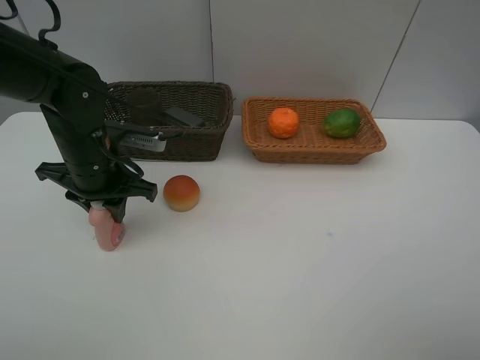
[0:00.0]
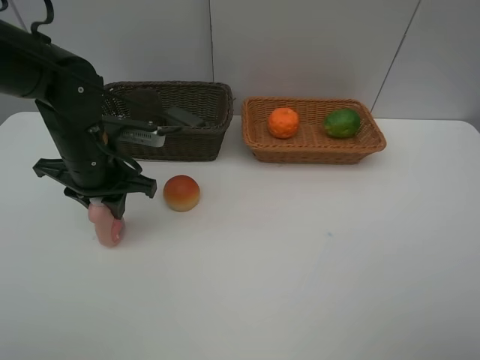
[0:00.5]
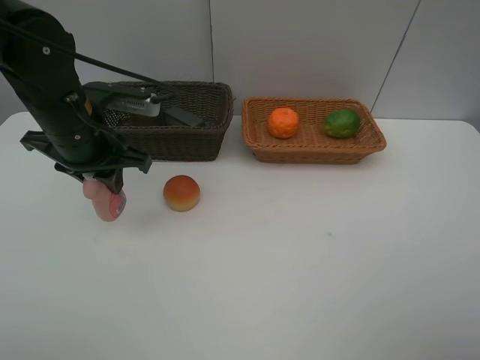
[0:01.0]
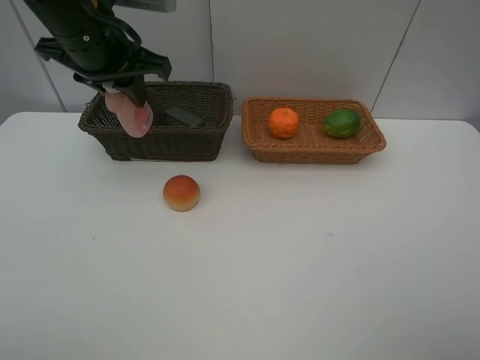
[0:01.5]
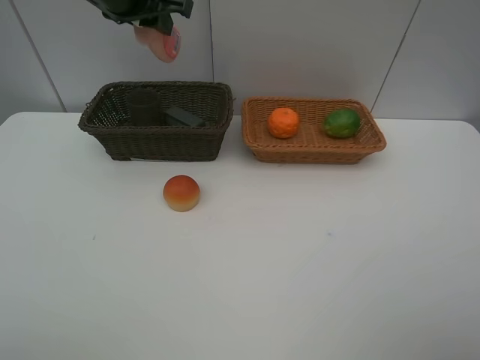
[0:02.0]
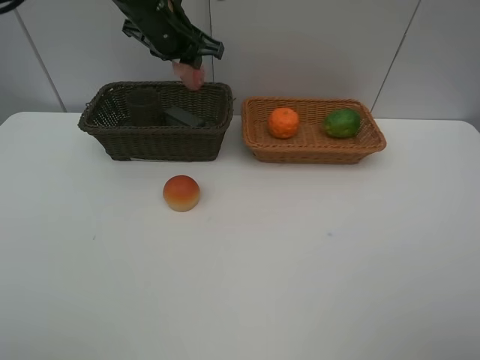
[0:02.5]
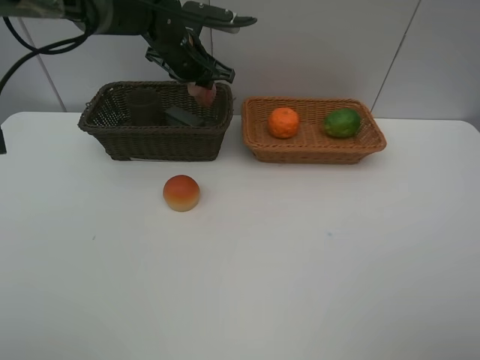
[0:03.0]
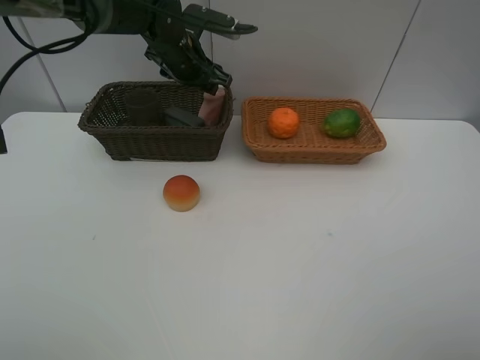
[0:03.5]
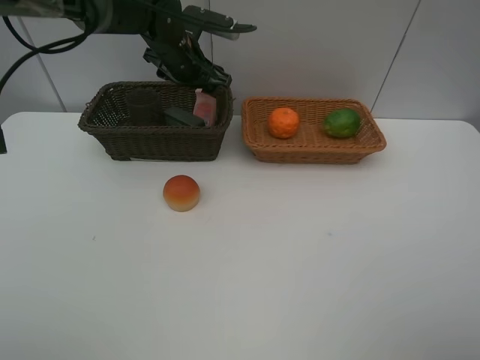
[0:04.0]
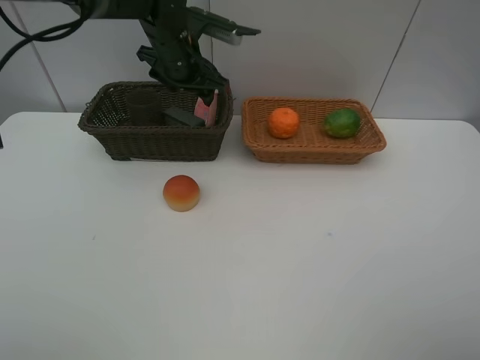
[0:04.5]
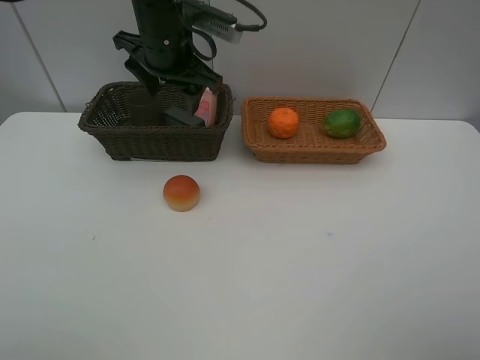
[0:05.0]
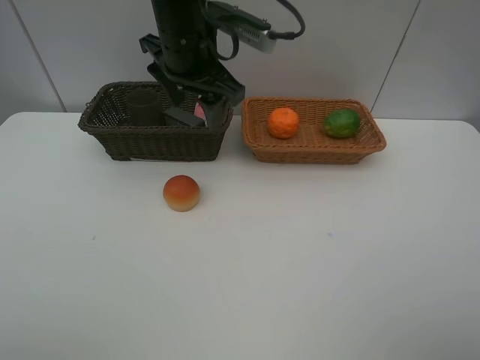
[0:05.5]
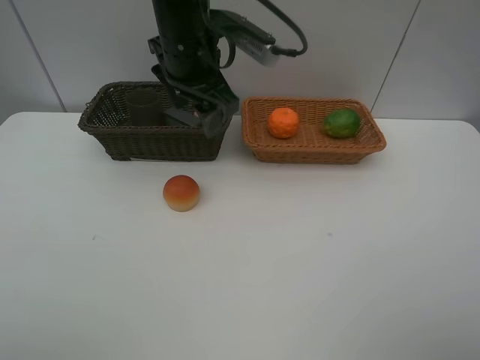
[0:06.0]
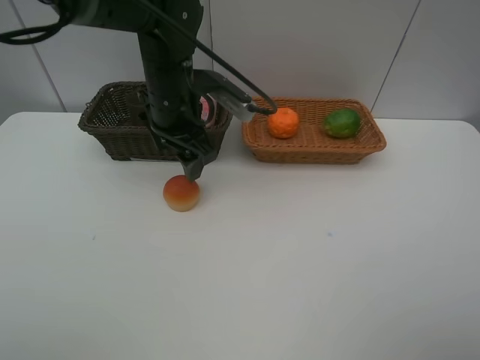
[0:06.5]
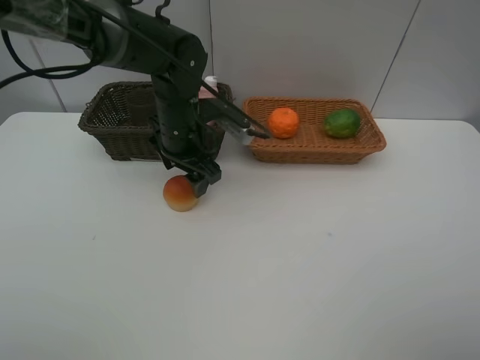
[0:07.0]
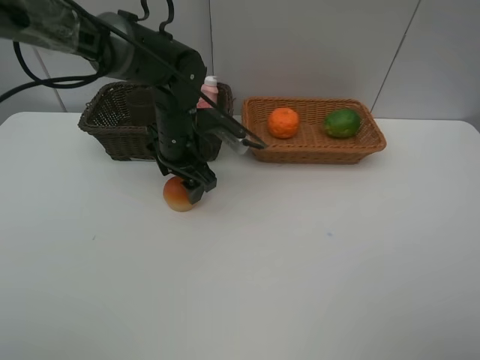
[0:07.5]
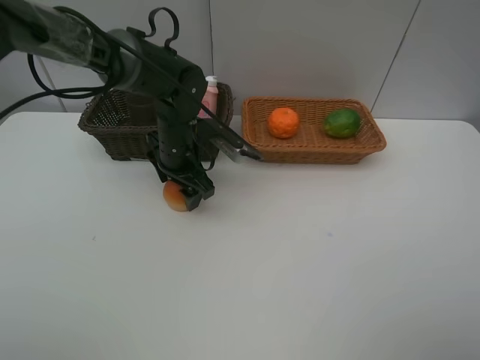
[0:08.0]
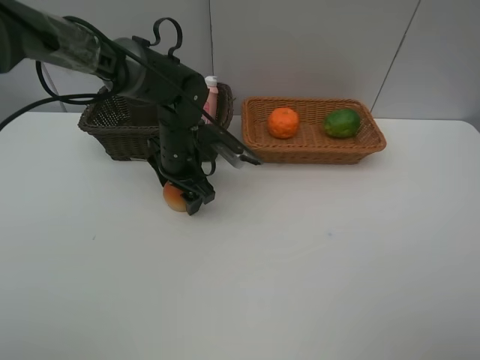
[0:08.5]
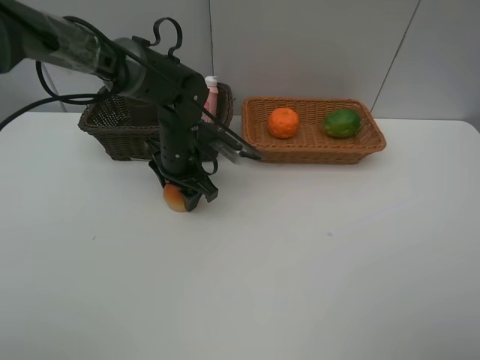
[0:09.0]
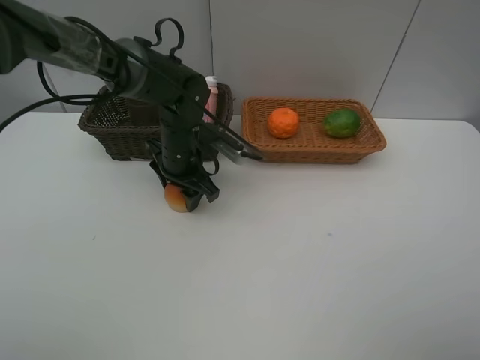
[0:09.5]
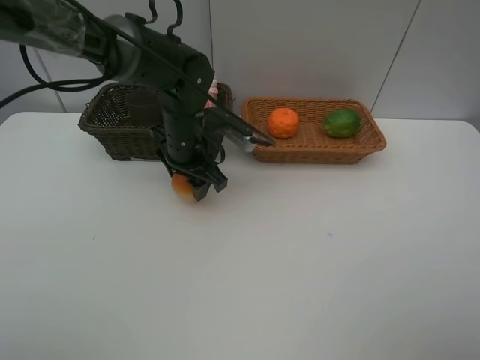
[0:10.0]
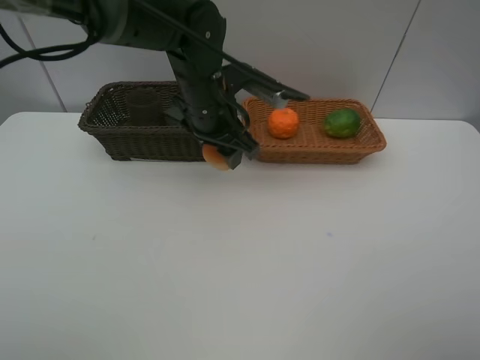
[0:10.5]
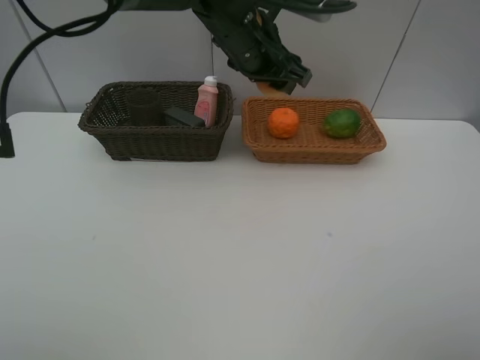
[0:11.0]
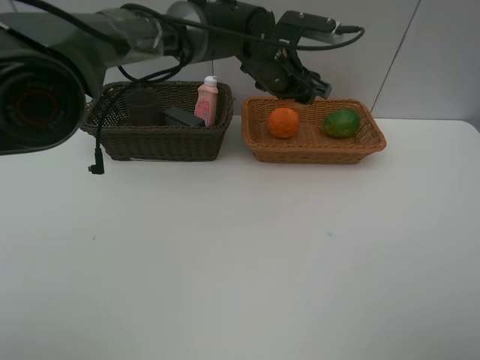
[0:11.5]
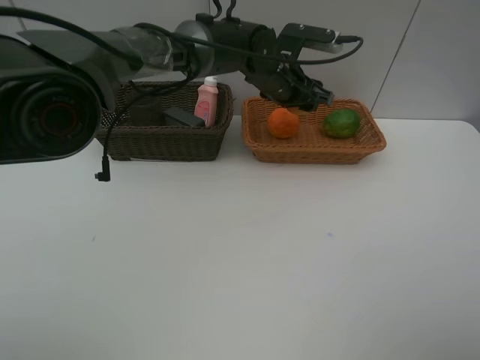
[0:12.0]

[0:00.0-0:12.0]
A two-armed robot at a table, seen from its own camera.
Task of the whole recording: place multiple objects separately in different baskets.
0:00.0 to 0:02.0: The left gripper moves upward and forward, about 20 cm.
0:02.0 to 0:04.0: The left gripper goes roughly 15 cm downward and forward, and opens.
0:04.0 to 0:06.0: The left gripper moves backward and upward, approximately 15 cm.
0:06.0 to 0:08.0: The left gripper goes roughly 15 cm downward.
0:08.0 to 0:10.0: The grippers move only a little.
0:10.0 to 0:12.0: The left gripper travels to the right and forward by approximately 15 cm.

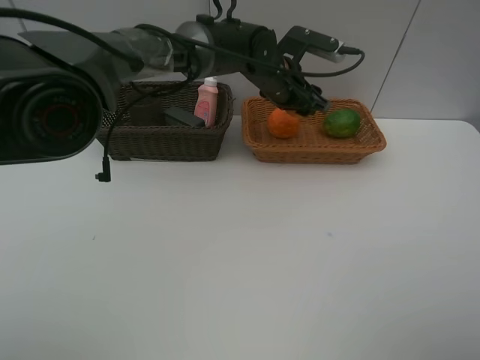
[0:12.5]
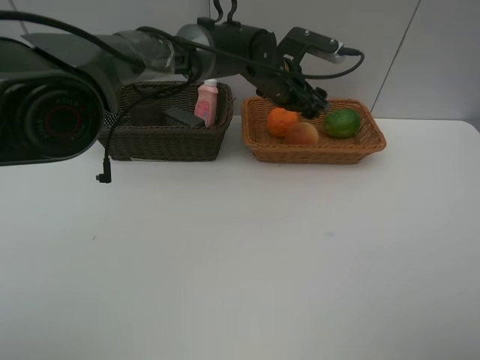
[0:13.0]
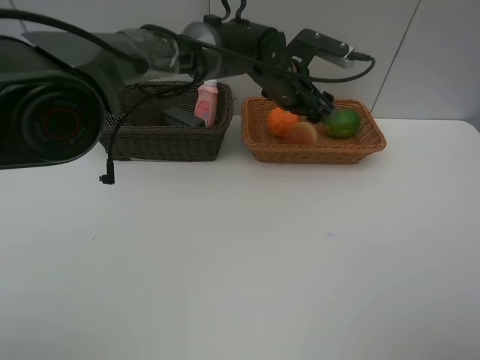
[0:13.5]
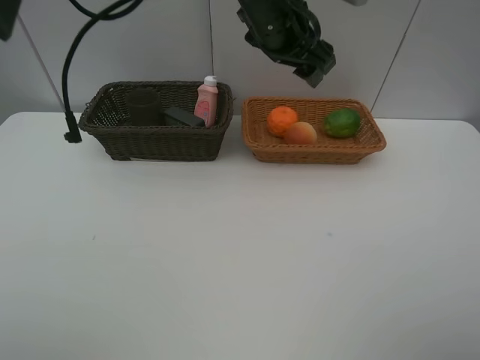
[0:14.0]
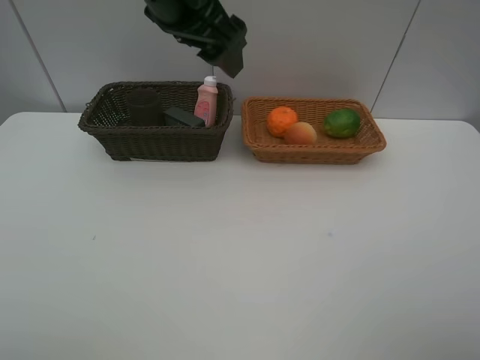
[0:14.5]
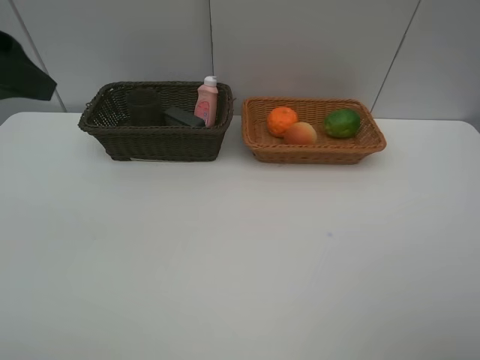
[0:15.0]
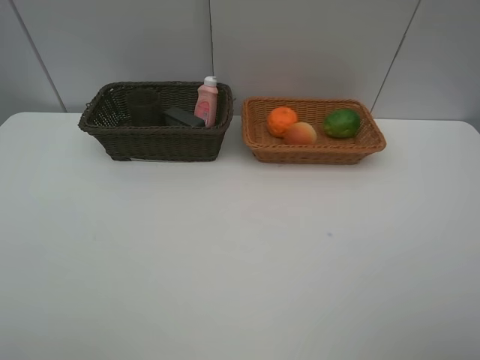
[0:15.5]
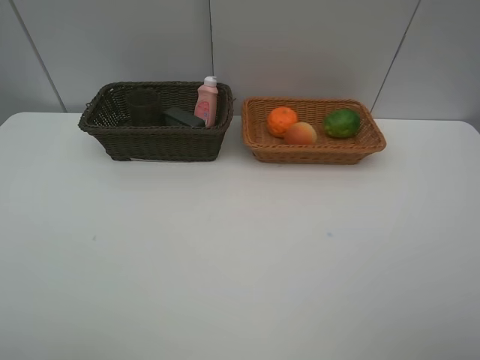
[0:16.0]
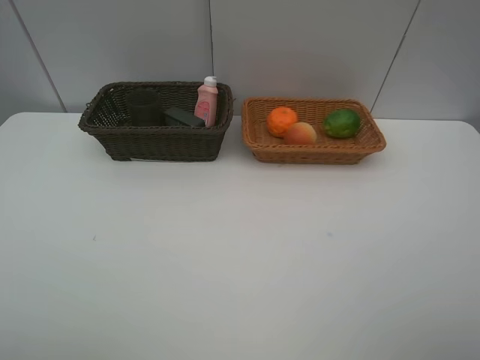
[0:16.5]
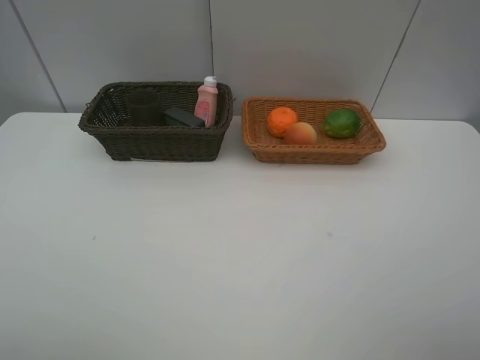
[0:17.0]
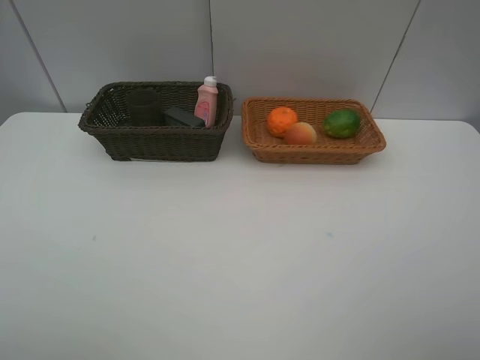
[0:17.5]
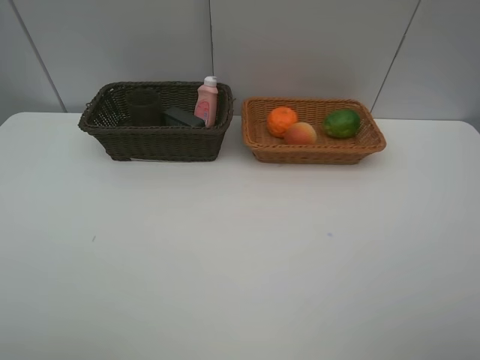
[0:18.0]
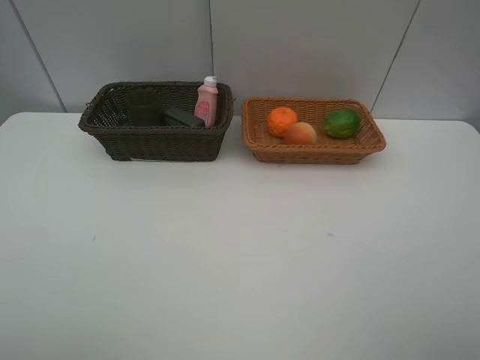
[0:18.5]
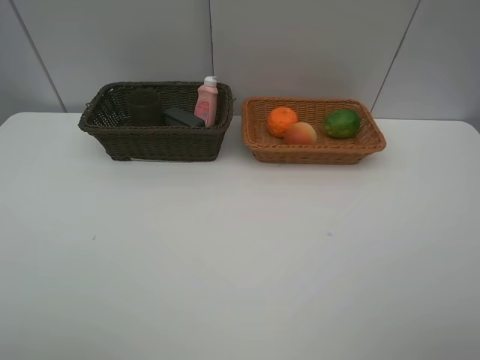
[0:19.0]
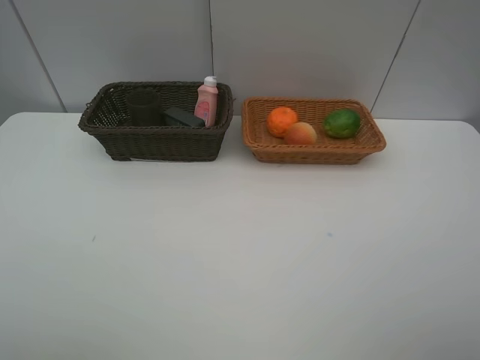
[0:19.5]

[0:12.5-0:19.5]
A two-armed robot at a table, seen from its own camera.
Task of the whole recording: place multiple objects separately in different baskets.
0:12.5 to 0:14.5: The left gripper goes approximately 25 cm upward, to the left and backward.
0:14.5 to 0:16.0: The left gripper moves backward and to the left, some 40 cm.
0:17.5 to 0:19.5: Both grippers stay put.

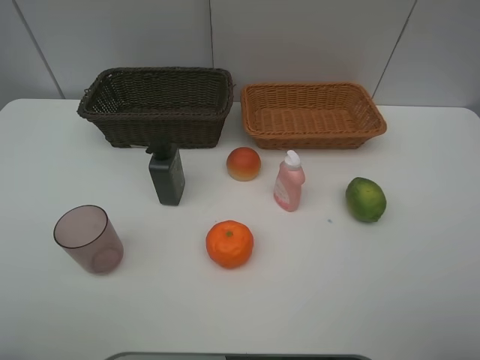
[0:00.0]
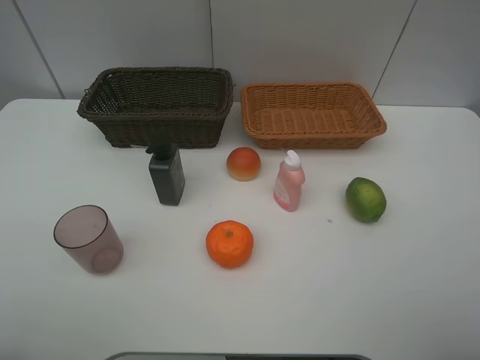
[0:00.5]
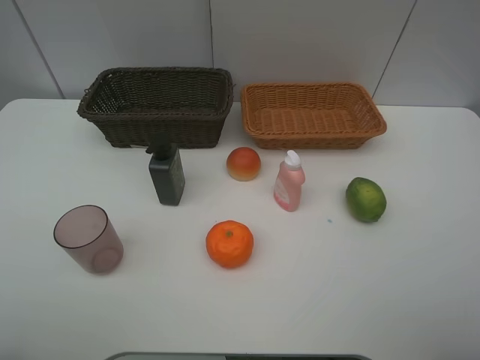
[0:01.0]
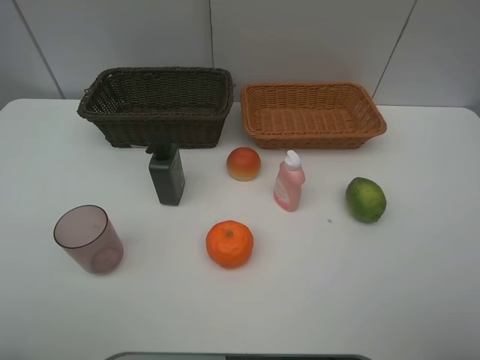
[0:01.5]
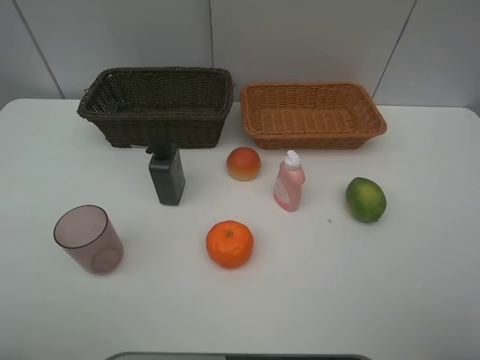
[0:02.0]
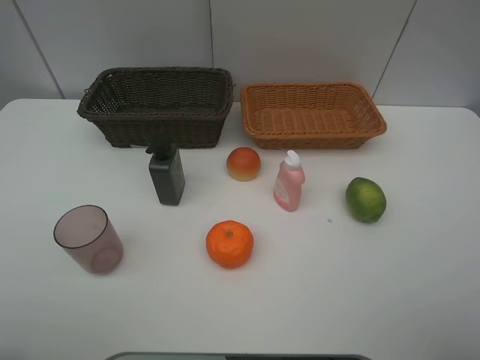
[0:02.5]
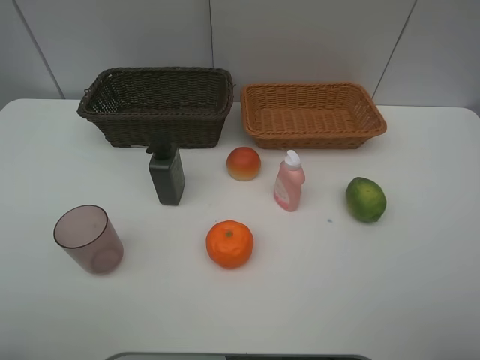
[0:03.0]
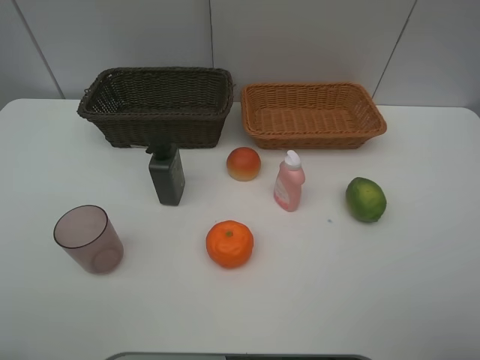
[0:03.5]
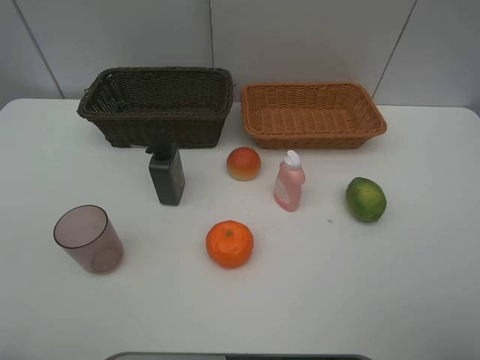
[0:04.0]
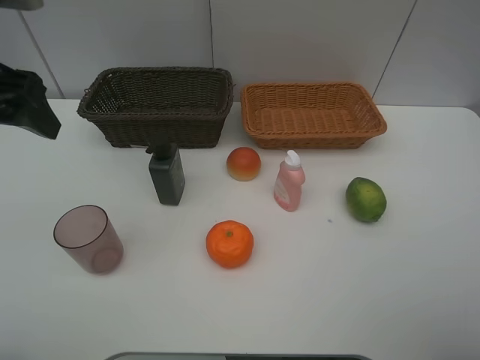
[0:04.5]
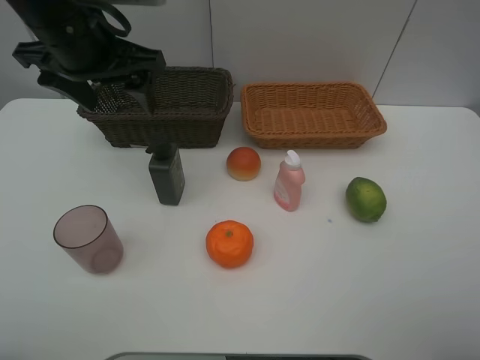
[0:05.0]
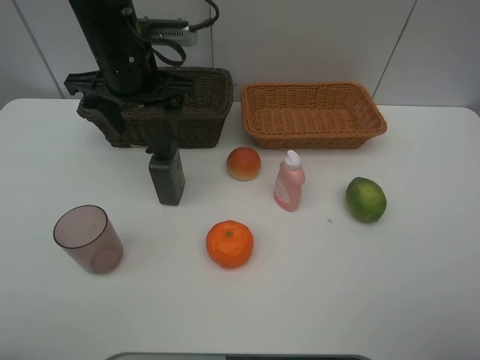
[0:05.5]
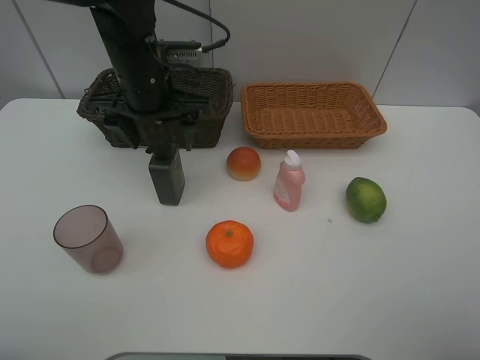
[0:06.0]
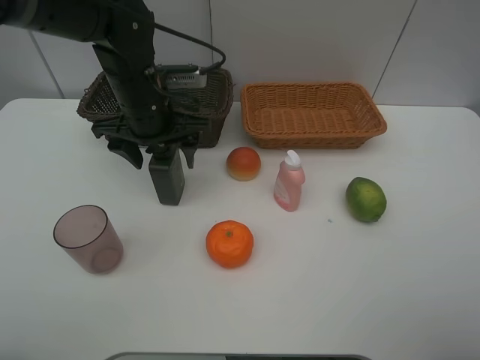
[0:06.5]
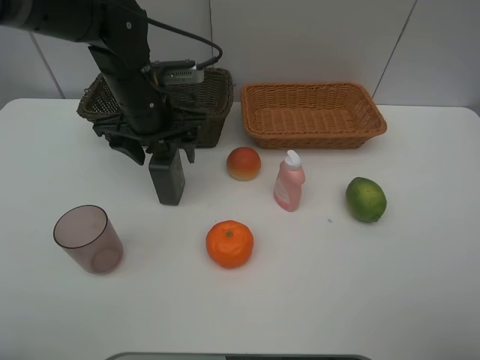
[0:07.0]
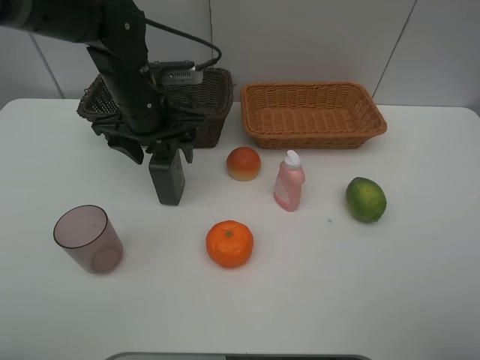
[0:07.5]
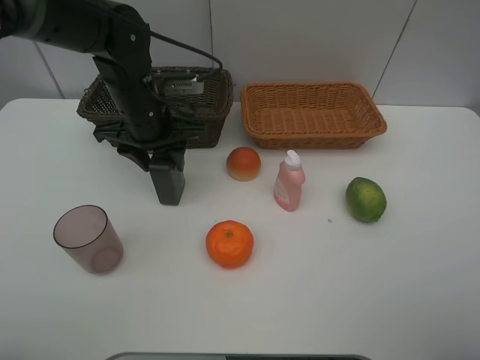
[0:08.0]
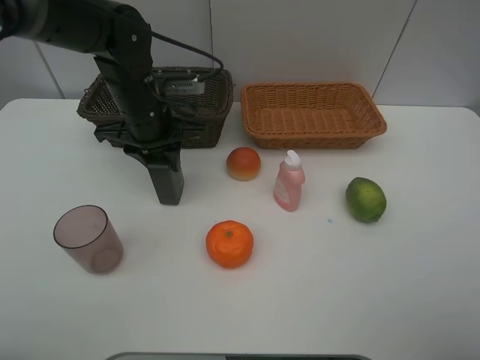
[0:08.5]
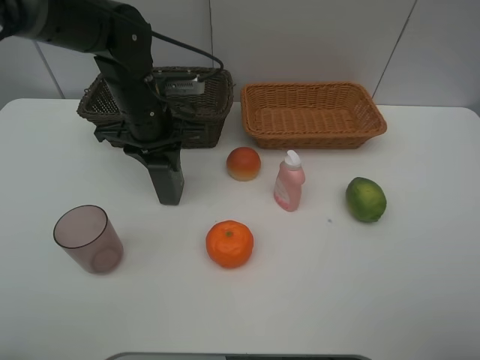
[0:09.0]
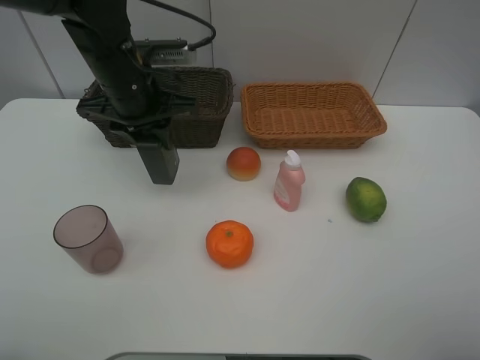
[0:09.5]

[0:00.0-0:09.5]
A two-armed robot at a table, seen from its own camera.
Task of the whole recording: place multiple objects separately in different baskets.
0:00.0 to 0:02.0: Both grippers stay about where they are.
0:04.0 to 0:05.5: The left gripper is displaced forward and to the right by approximately 25 cm.
0:05.5 to 0:07.5: The left gripper goes approximately 5 cm downward.
0:07.5 to 0:09.5: The left gripper closes.
